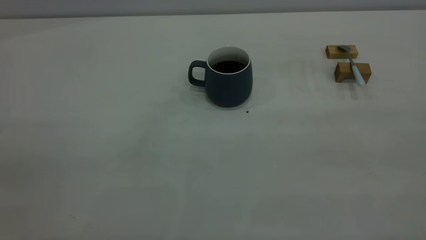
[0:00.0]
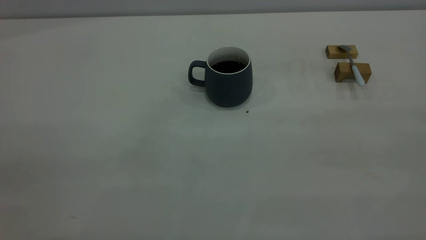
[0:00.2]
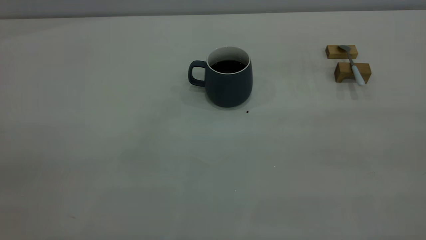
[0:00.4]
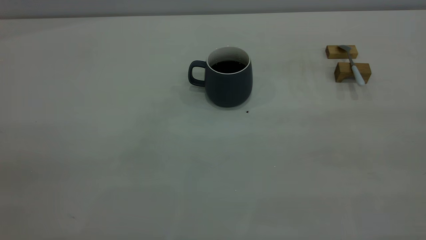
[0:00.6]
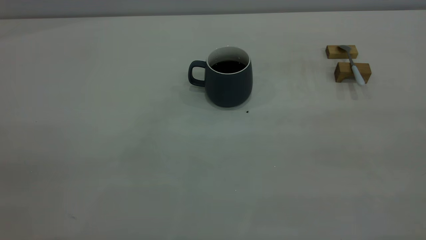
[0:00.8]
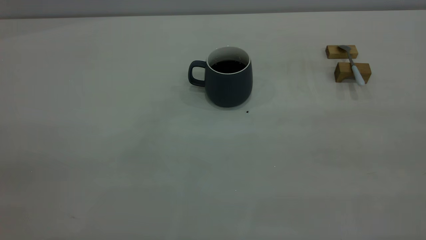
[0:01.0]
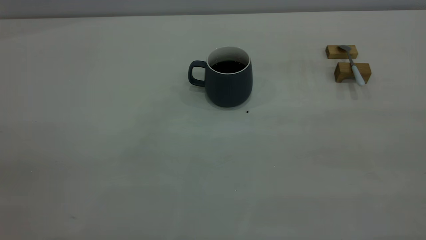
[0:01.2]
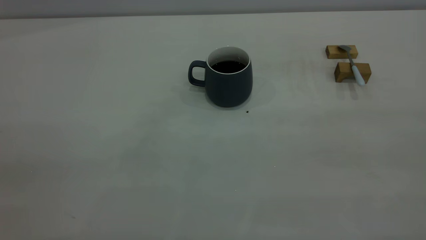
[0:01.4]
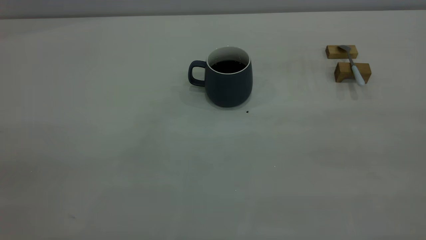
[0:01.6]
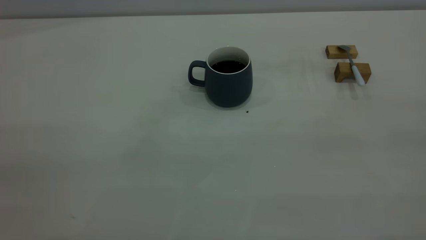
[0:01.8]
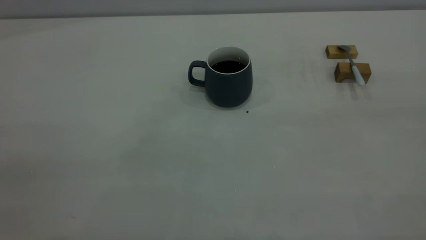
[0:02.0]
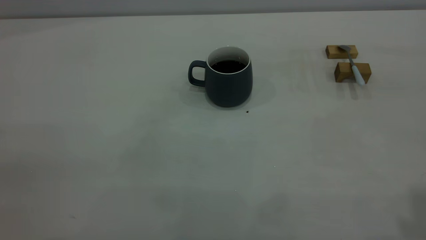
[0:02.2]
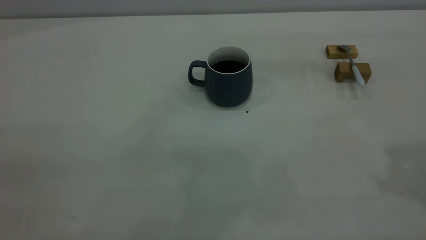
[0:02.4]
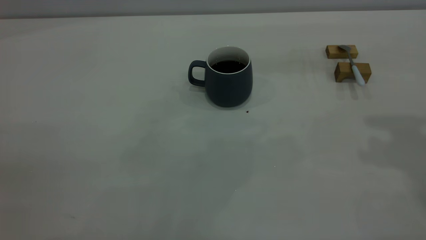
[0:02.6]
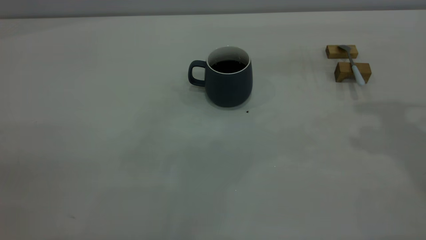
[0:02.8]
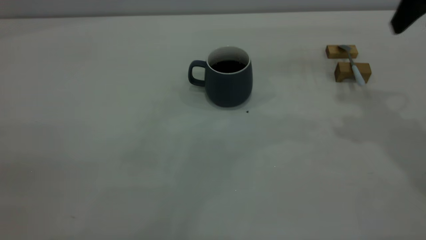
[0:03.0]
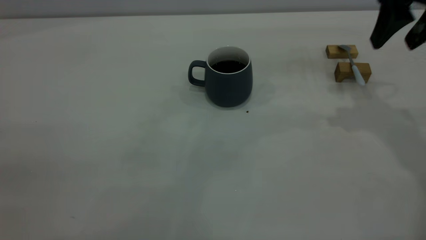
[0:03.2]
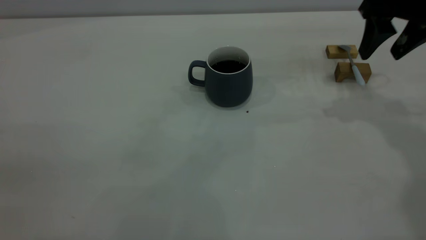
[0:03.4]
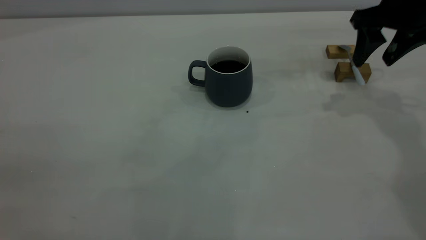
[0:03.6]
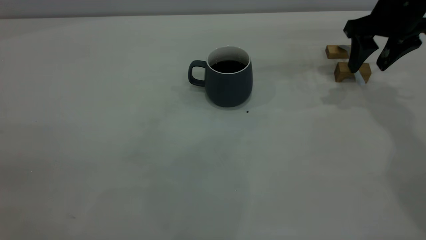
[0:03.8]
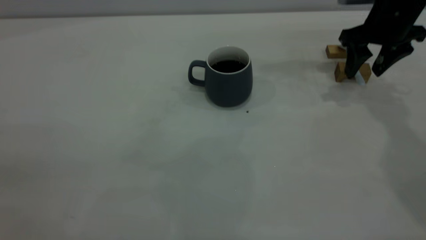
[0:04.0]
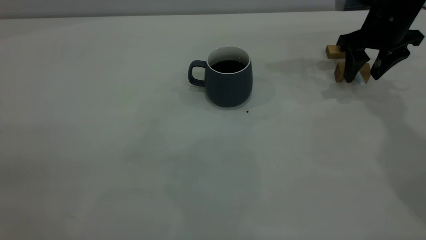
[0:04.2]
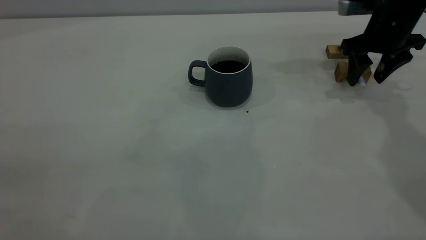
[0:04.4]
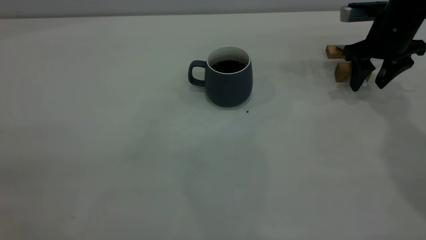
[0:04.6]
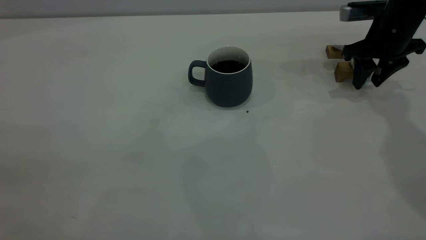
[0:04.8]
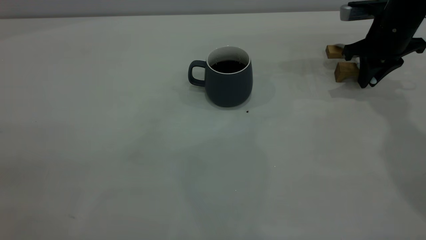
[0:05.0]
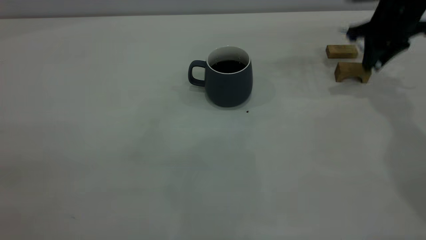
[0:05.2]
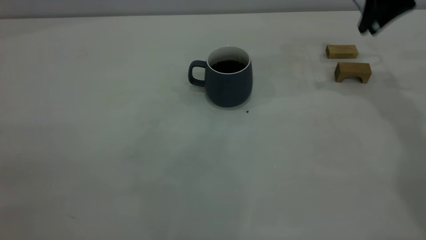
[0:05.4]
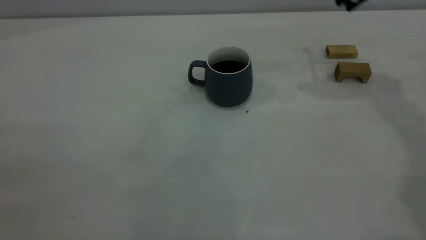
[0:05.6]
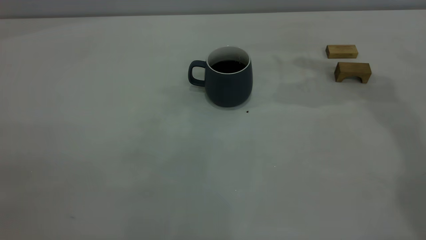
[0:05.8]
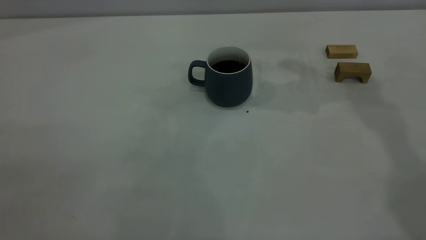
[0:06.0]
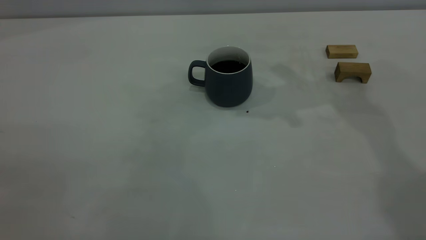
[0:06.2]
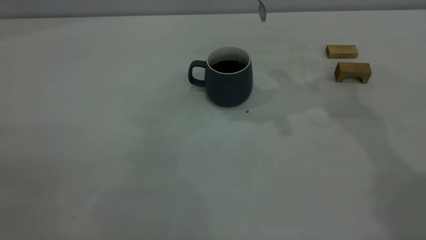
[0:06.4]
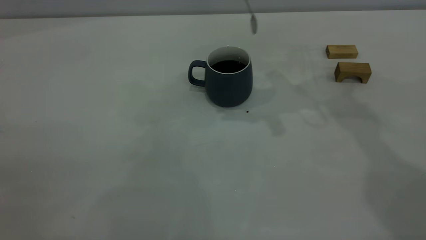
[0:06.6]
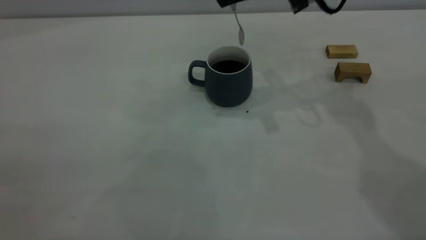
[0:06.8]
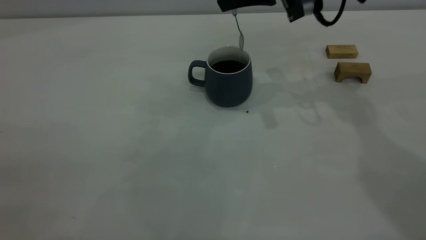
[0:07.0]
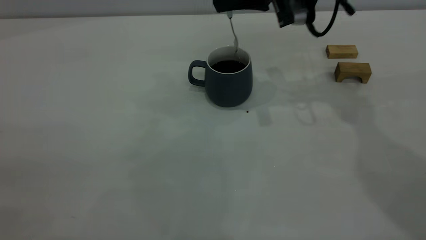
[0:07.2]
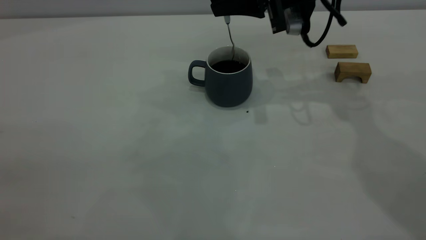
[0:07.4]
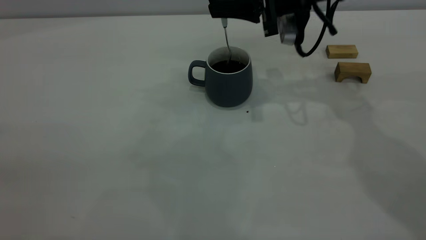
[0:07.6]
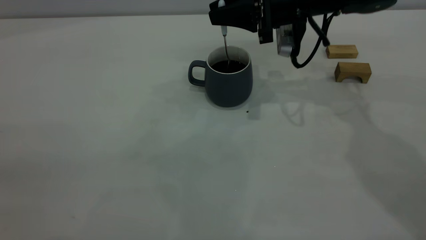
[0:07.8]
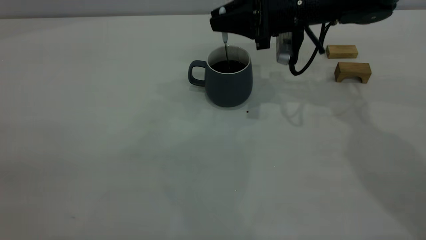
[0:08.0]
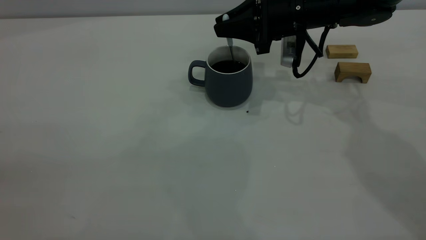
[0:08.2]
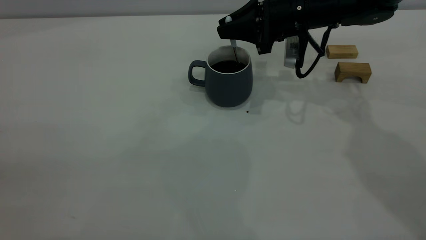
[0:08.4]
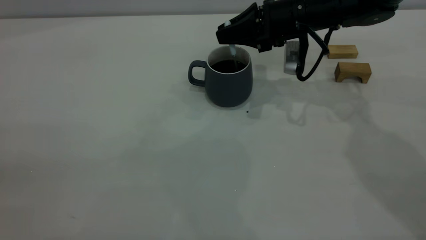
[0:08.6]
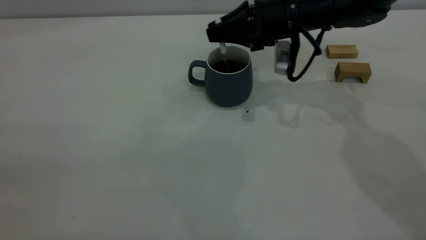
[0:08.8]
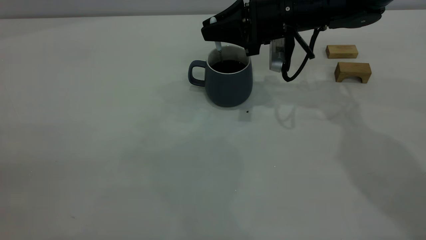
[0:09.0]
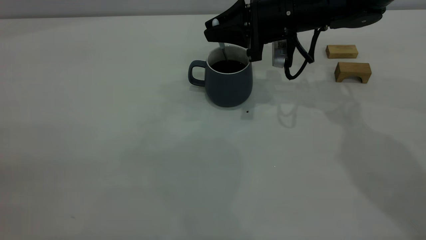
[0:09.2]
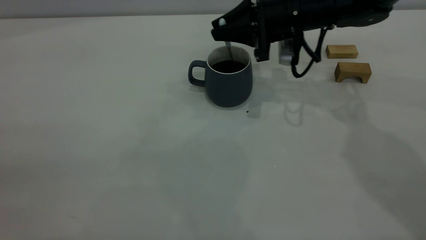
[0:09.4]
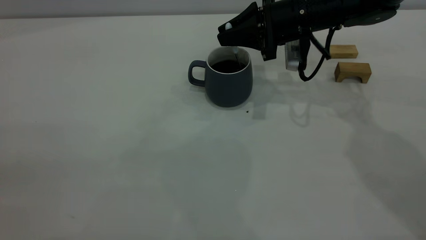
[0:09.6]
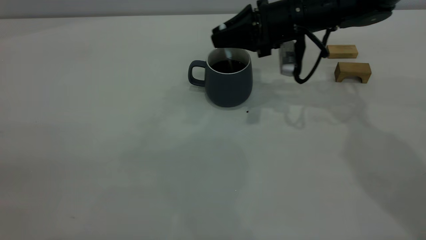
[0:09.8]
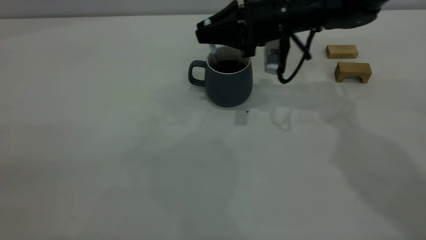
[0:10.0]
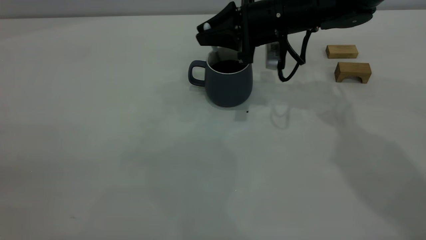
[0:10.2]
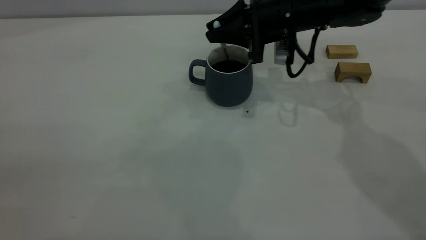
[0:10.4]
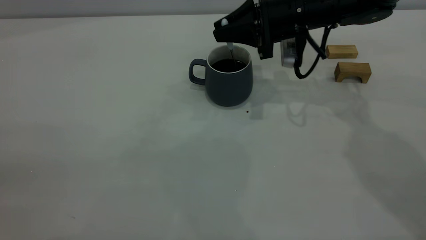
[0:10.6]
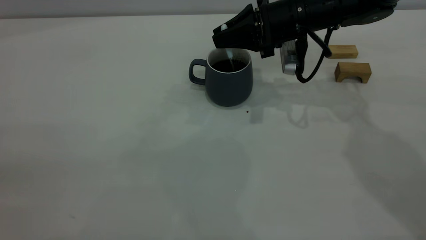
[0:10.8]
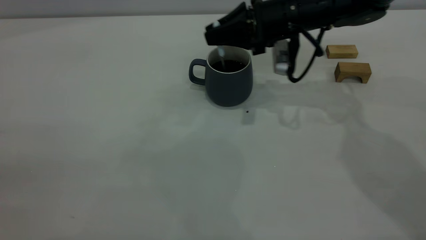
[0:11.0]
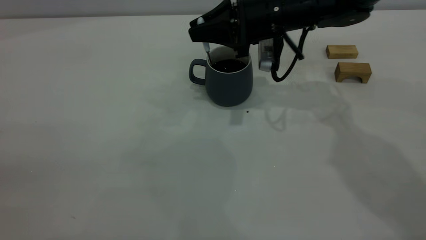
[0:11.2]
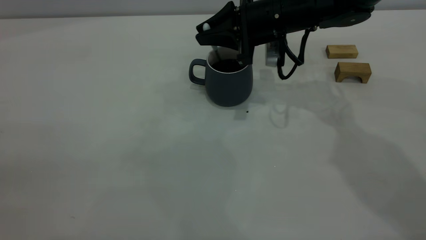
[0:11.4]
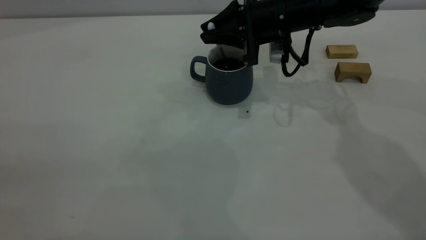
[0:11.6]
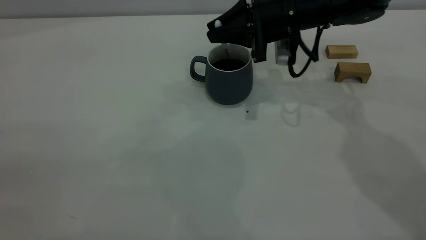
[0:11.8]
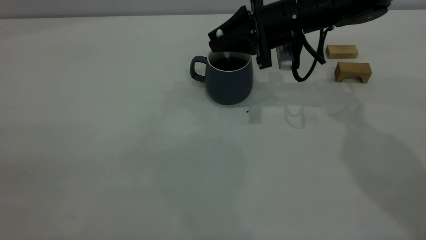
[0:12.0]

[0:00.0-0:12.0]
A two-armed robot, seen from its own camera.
Step, 0:00.0 to 0:05.2: Pick up the spoon.
0:00.0 to 0:01.6: Both grippers stay about where they are.
0:01.6 to 0:03.0: The right gripper moves forward, about 35 cm, and opens.
0:03.0 to 0:04.4: The right gripper moves downward and forward, roughly 20 cm.
0:04.4 to 0:06.0: The right gripper moves upward and to the left, about 20 cm, and closes up.
0:06.0 to 0:07.6: The right gripper heads downward, covering some 15 cm.
0:09.0 to 0:10.4: The grippers move only a little.

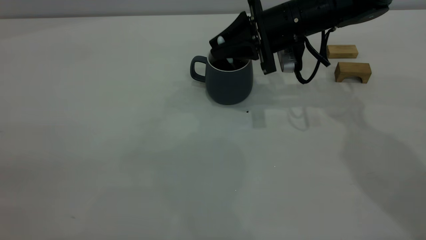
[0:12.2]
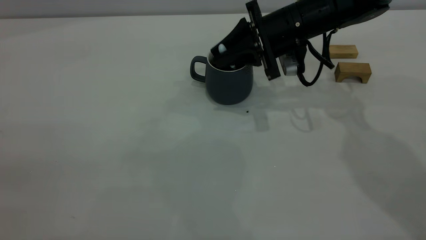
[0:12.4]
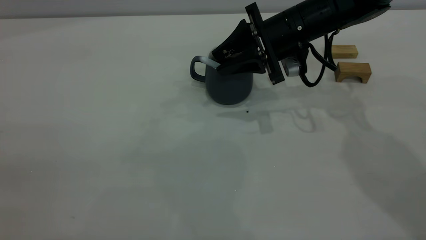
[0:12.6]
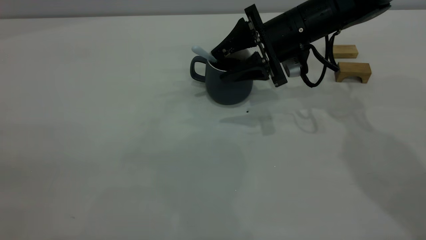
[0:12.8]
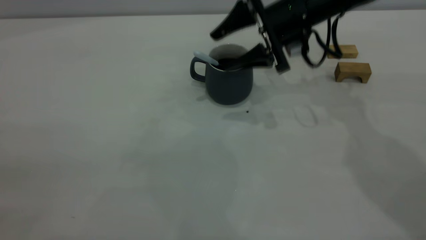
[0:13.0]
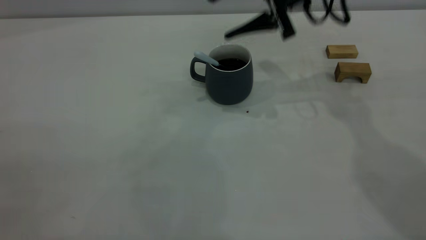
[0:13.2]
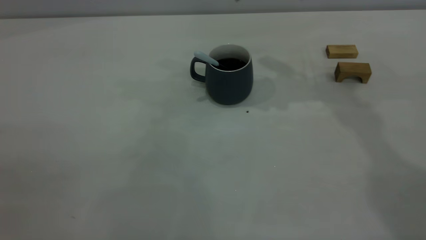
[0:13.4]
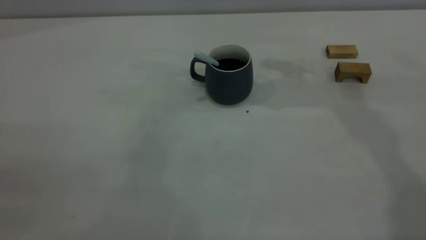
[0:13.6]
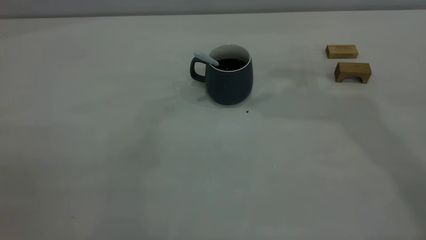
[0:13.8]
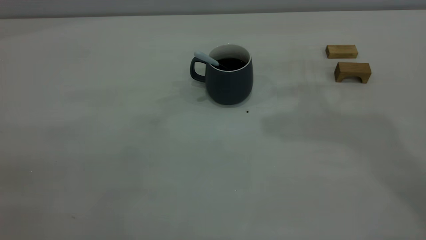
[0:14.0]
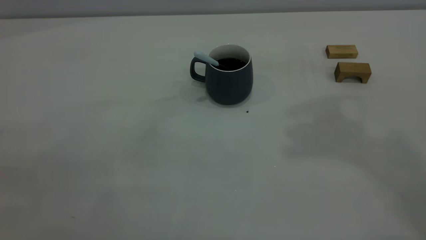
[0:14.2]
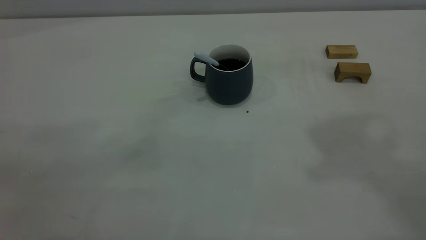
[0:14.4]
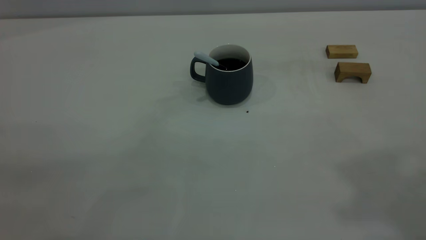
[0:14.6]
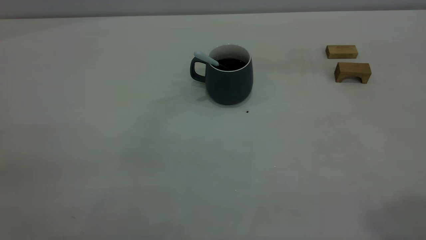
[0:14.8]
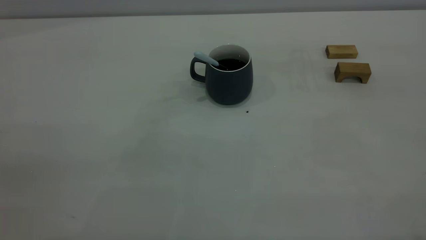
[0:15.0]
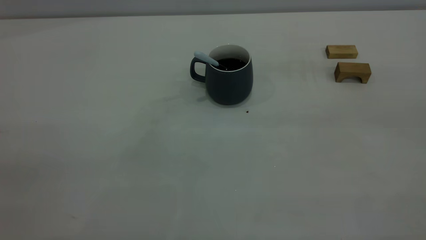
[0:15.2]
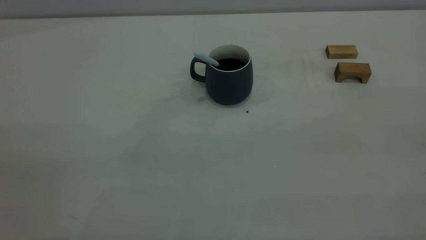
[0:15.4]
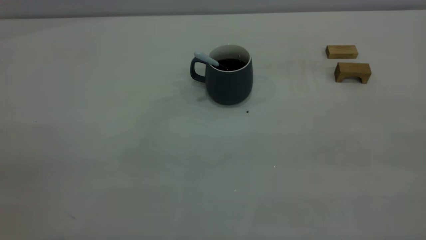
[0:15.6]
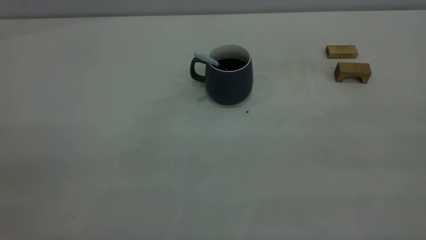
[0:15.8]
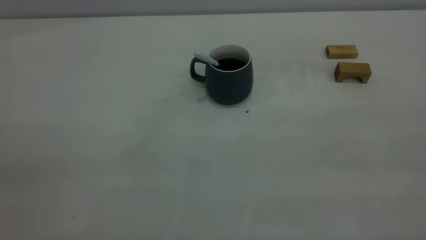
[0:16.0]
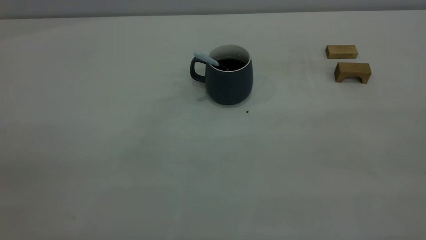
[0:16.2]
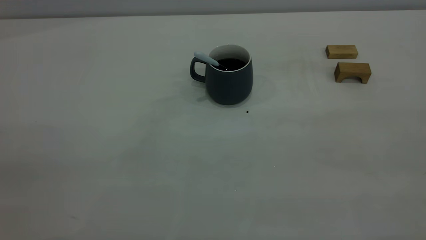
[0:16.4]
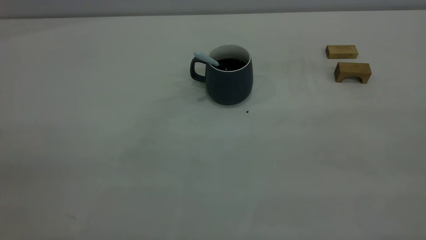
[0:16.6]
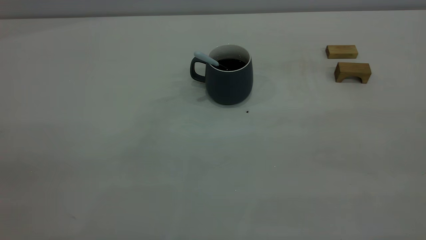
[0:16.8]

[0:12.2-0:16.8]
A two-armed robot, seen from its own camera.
0:12.2 to 0:13.8: The right gripper is displaced upward by about 30 cm, and opens up.
